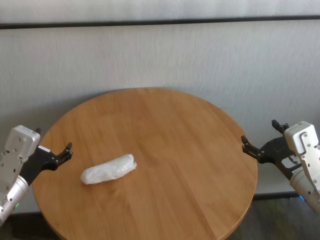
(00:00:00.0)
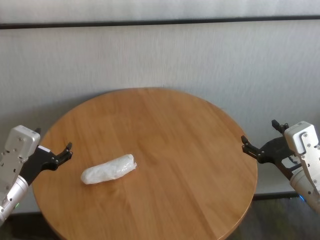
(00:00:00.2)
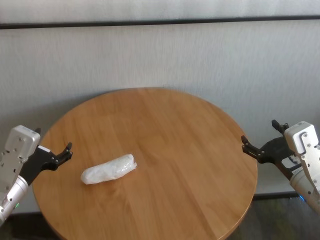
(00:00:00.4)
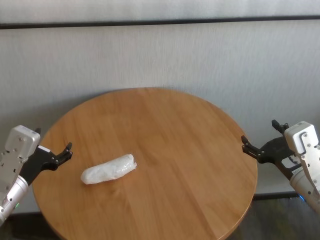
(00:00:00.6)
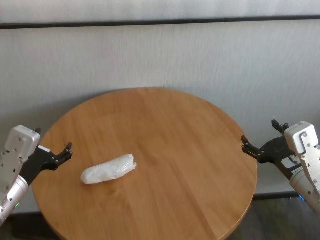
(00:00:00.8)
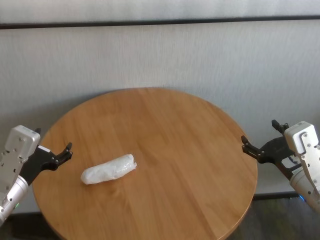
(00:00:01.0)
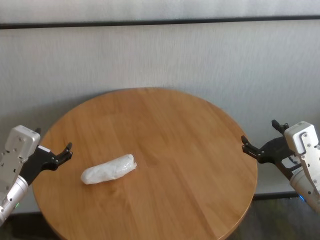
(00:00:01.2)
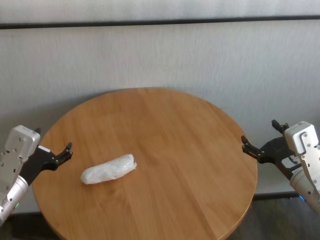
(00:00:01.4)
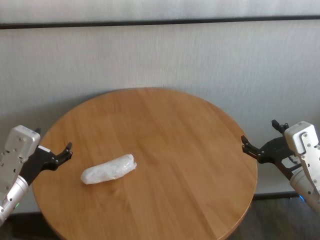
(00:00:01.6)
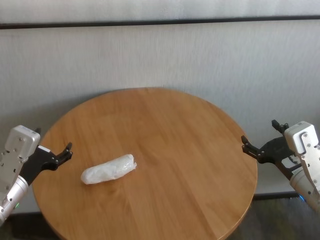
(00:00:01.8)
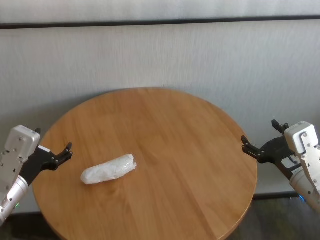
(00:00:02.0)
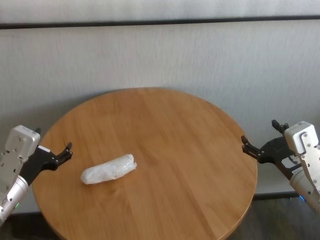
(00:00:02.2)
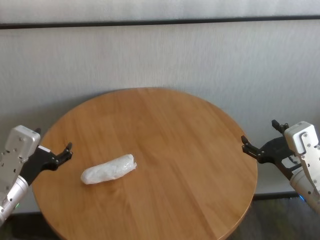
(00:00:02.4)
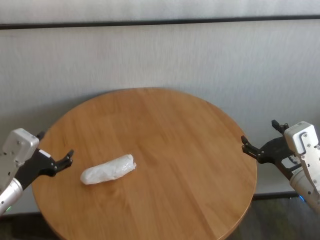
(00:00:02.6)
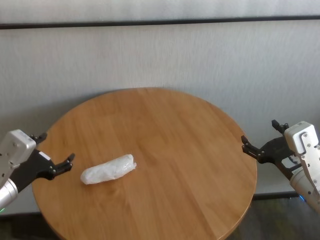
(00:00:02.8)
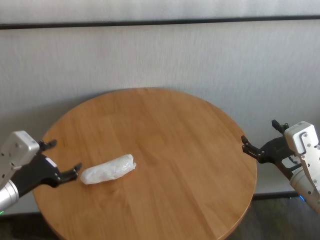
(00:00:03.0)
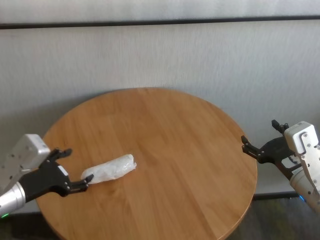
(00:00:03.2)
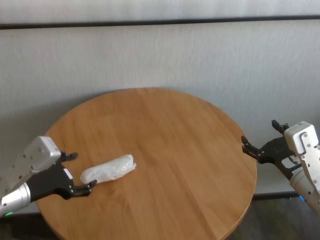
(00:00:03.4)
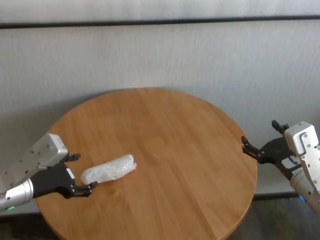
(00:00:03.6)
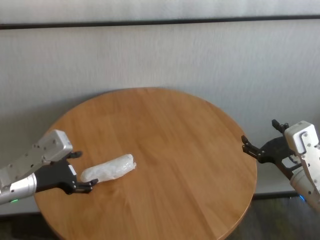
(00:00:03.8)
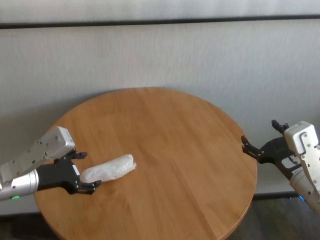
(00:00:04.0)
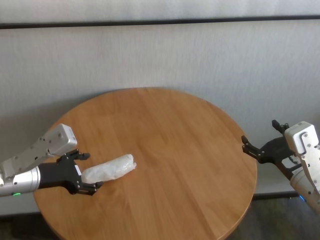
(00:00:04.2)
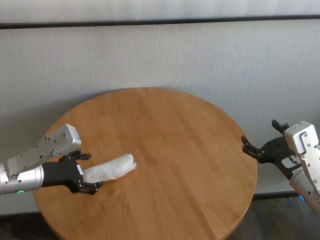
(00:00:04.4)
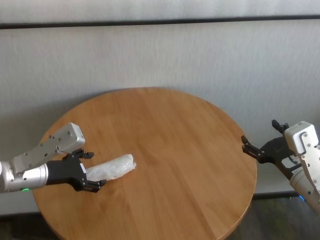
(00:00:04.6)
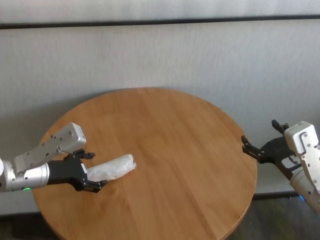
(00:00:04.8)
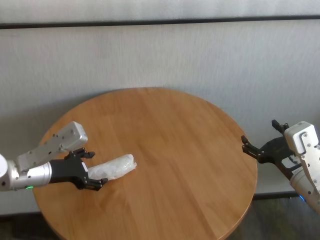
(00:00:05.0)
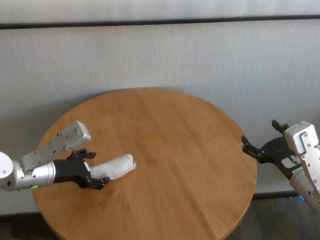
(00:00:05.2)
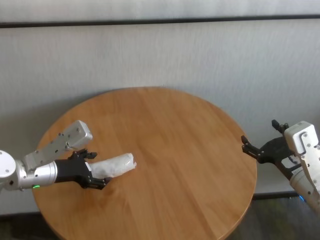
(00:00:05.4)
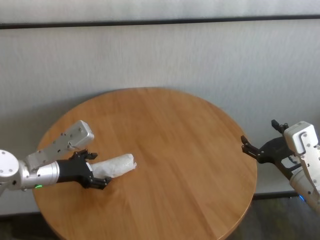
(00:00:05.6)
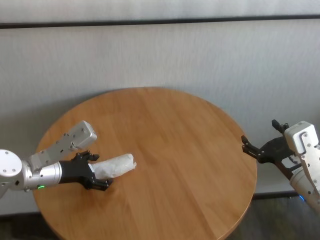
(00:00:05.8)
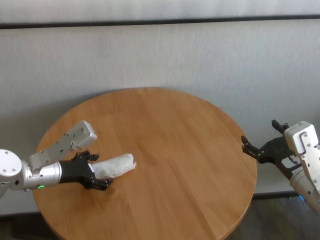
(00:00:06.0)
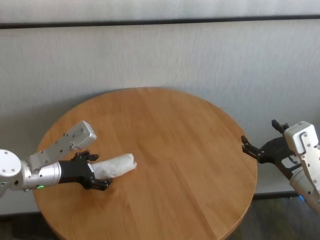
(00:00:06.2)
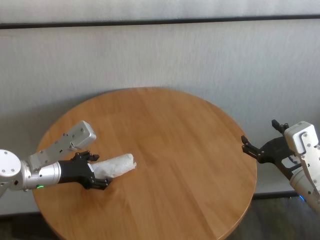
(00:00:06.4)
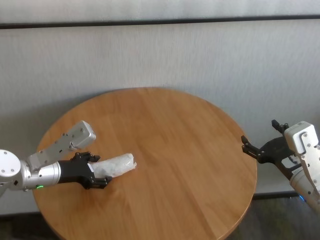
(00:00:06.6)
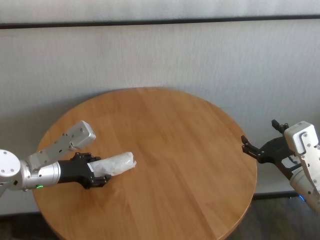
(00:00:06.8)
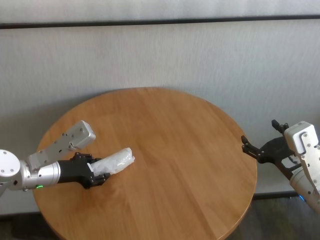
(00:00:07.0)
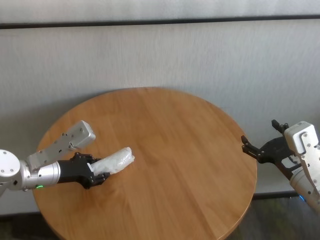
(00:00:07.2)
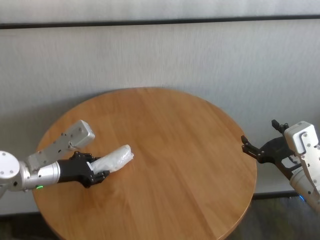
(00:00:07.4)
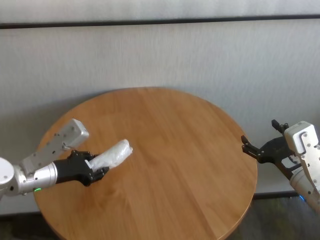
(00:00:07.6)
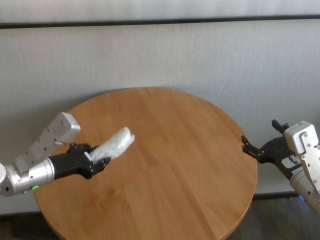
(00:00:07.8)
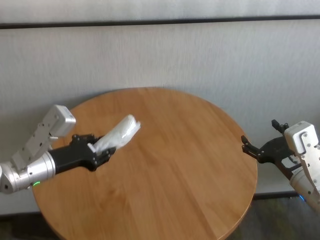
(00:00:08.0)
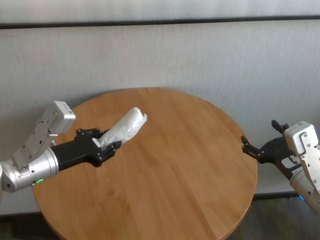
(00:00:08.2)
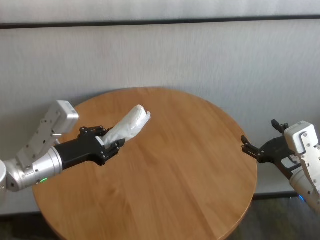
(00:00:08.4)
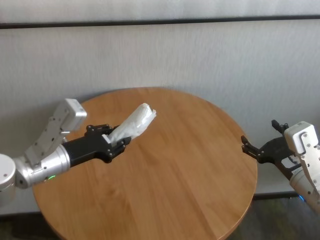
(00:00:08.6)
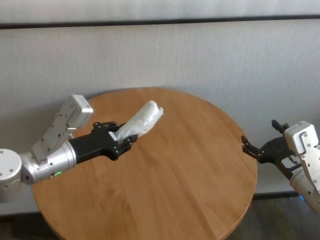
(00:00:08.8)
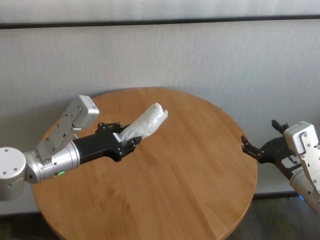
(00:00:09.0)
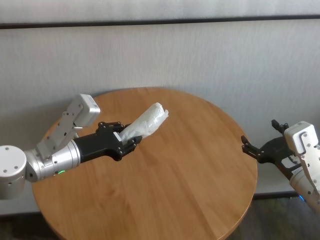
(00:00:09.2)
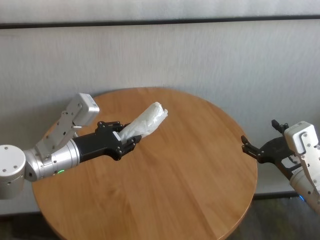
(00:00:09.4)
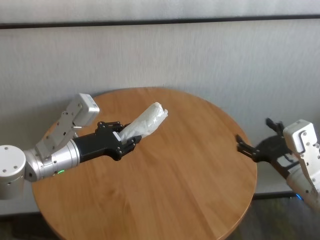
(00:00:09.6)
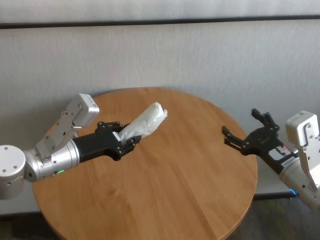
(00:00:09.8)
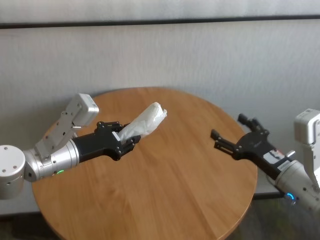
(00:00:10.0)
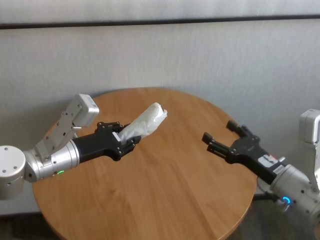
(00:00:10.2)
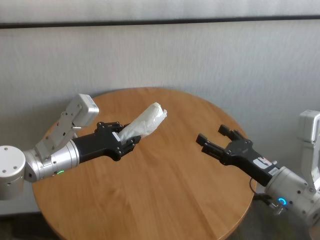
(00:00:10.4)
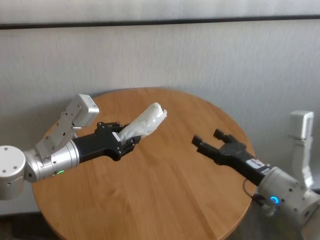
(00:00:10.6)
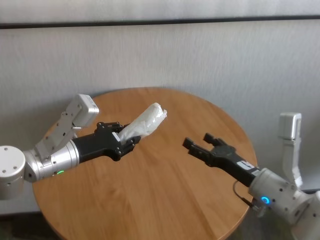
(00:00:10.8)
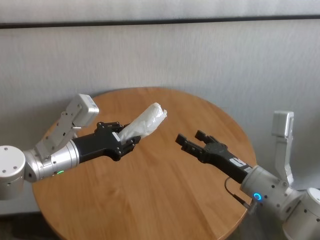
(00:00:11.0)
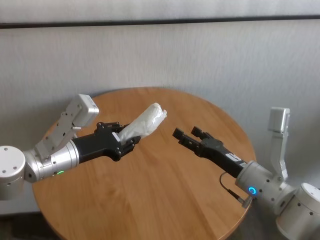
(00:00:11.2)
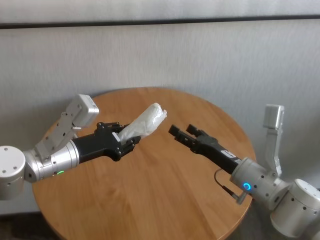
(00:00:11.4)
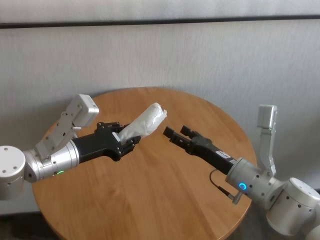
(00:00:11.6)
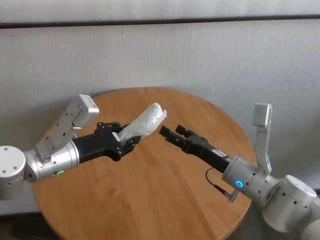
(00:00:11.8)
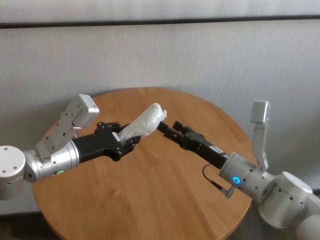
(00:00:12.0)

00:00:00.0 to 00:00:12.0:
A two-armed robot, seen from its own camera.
Task of the whole recording: One hand took the sandbag from the other hand and placed it on the table.
Step, 00:00:00.0 to 00:00:07.2: Grasp the paper ball with left gripper.

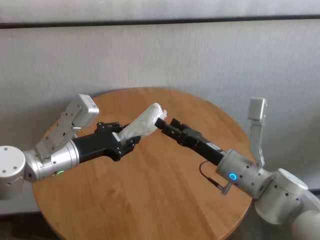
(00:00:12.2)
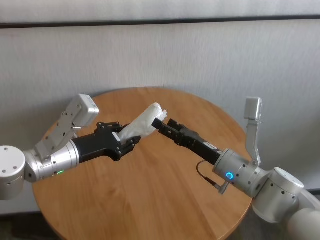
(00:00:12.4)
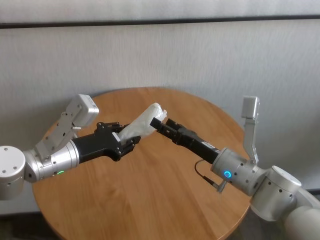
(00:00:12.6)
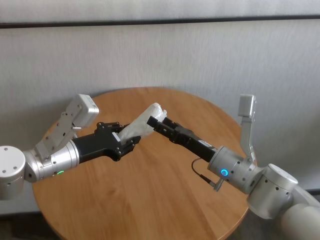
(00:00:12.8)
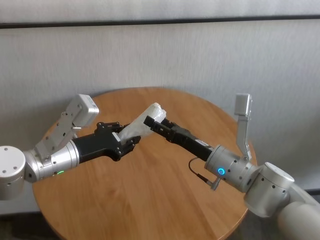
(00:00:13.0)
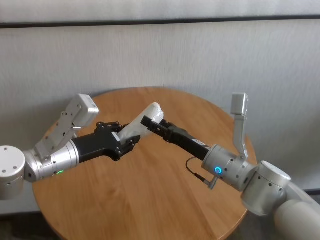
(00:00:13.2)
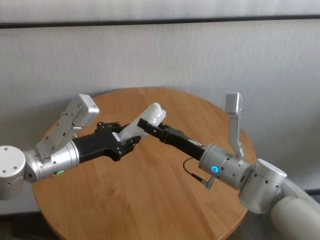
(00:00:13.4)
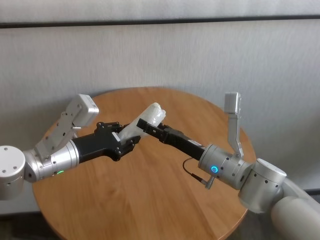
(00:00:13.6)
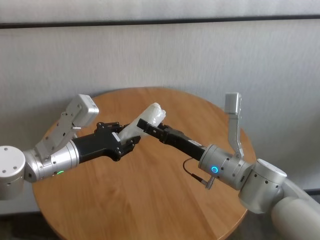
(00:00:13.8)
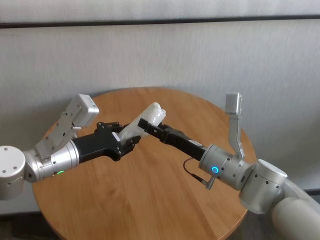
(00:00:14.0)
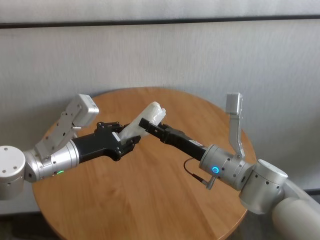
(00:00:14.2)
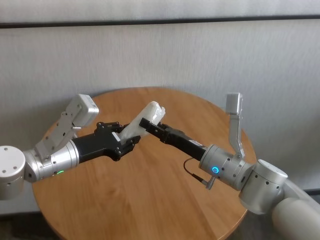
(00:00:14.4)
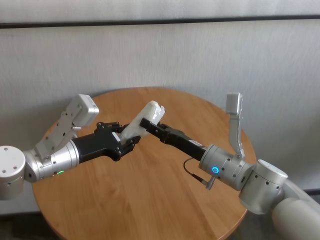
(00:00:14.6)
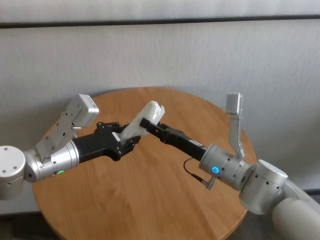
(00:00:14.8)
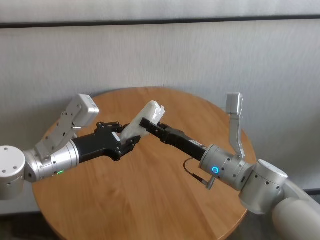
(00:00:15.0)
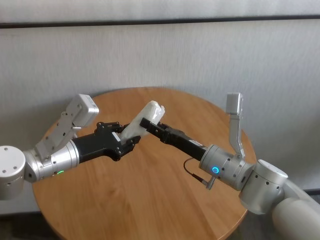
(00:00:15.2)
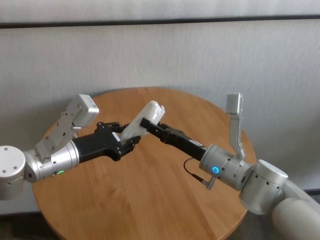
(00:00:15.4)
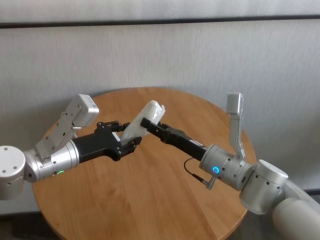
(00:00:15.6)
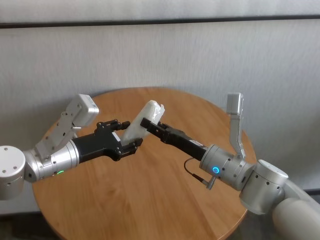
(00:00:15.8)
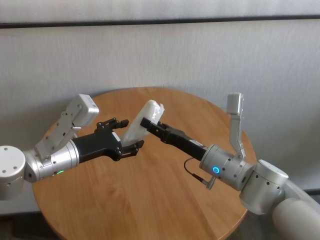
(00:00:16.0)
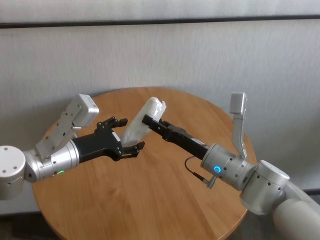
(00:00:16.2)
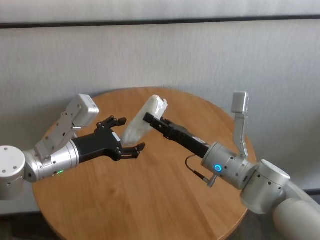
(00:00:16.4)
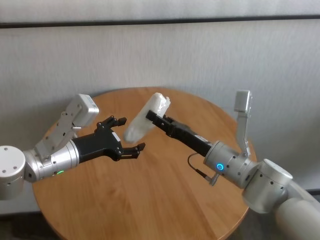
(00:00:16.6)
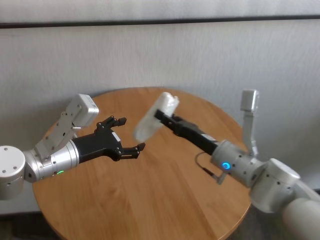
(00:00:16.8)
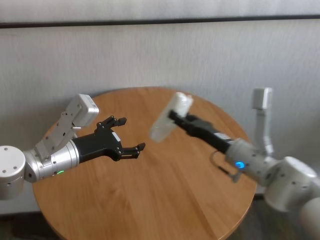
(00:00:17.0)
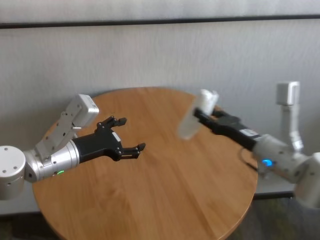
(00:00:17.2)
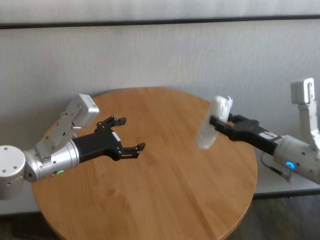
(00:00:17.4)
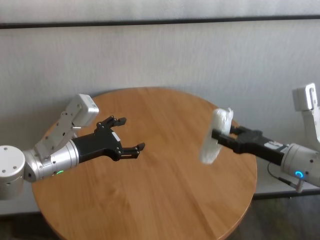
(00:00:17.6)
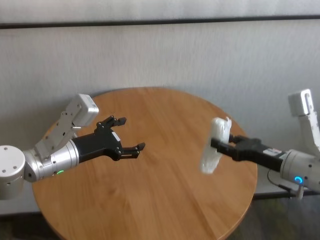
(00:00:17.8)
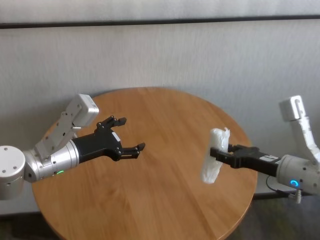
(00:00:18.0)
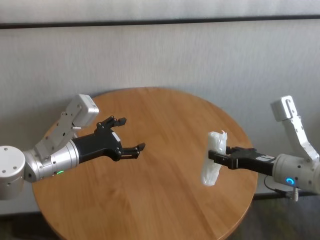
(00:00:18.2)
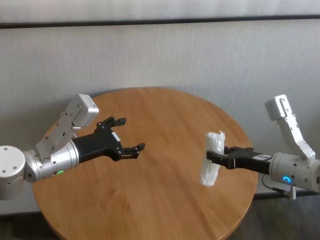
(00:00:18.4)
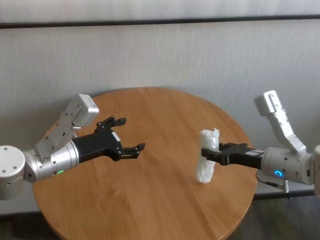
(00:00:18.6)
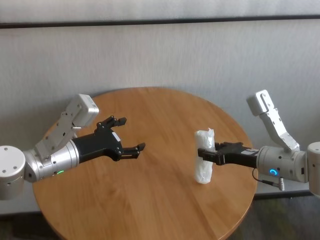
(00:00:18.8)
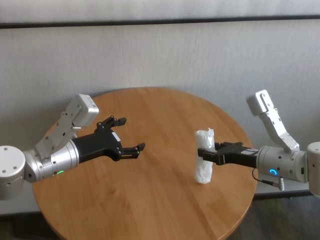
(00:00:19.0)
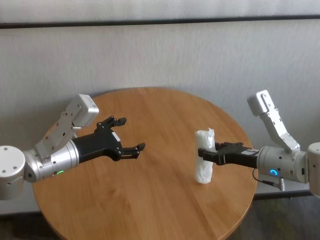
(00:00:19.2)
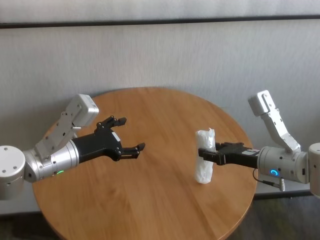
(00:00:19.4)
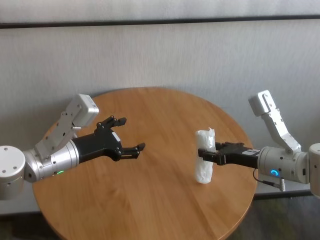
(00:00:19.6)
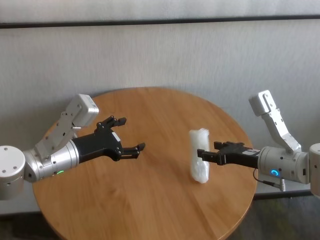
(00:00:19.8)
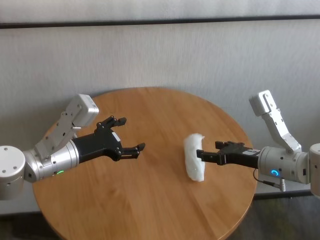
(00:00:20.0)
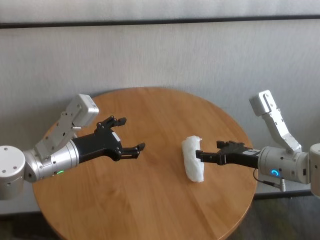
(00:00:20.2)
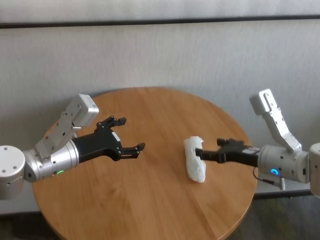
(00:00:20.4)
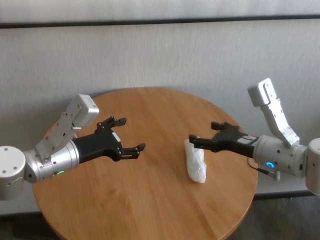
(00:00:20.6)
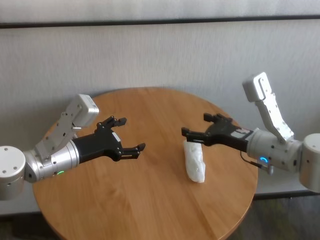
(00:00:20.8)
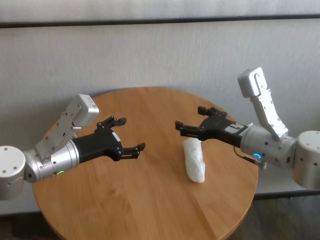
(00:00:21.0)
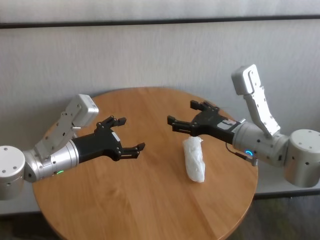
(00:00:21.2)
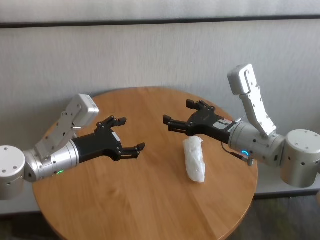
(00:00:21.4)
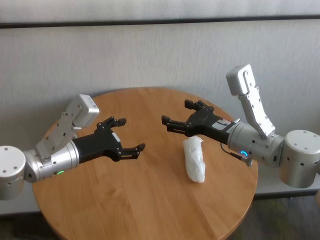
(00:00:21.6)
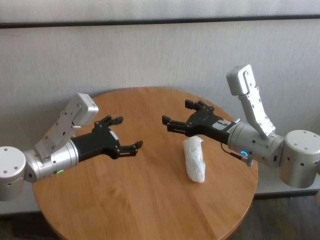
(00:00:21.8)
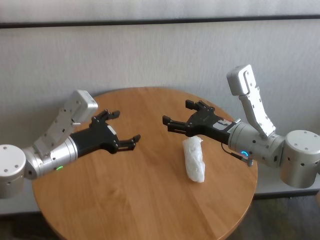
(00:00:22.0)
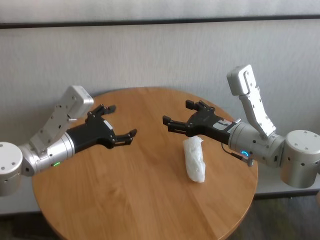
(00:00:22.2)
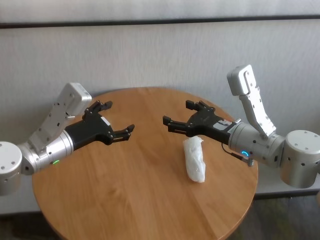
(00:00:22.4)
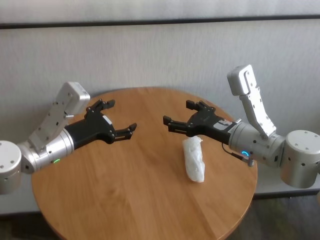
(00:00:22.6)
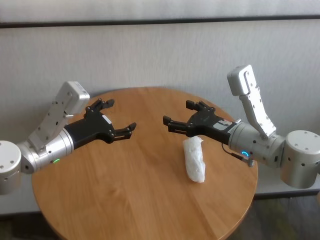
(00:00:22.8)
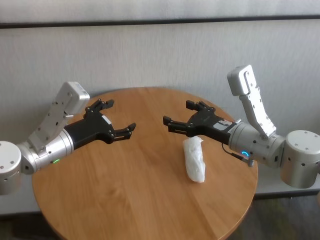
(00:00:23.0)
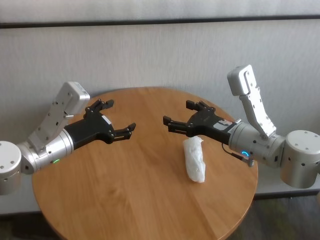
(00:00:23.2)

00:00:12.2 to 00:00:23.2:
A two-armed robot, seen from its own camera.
Task of the whole recording: One hand took the sandbag from the other hand and placed it on the table.
Step, 00:00:12.2 to 00:00:16.4: Pass the paper ball to the right gripper.
Step, 00:00:16.6 to 00:00:20.2: Place the paper ball on the table with right gripper.
